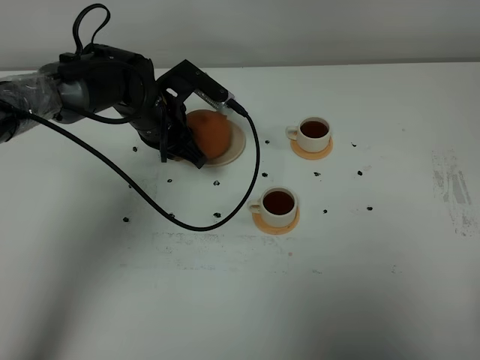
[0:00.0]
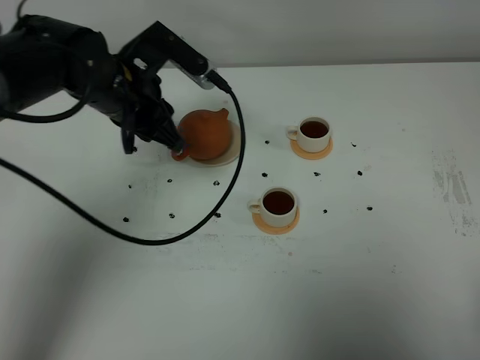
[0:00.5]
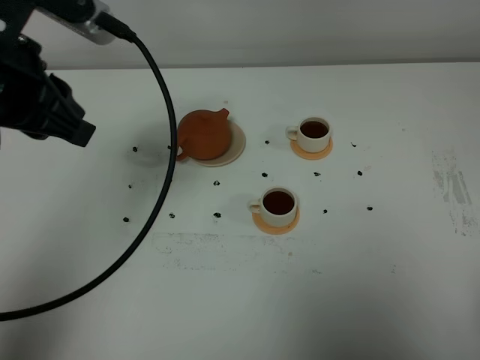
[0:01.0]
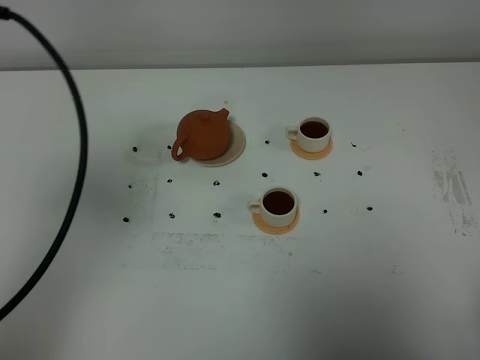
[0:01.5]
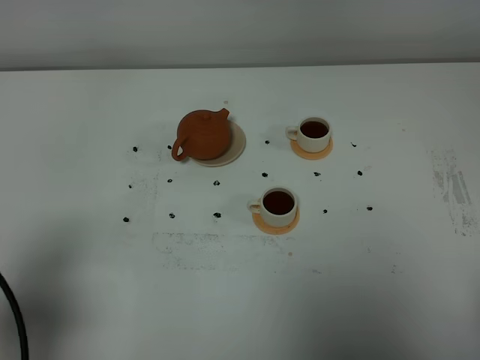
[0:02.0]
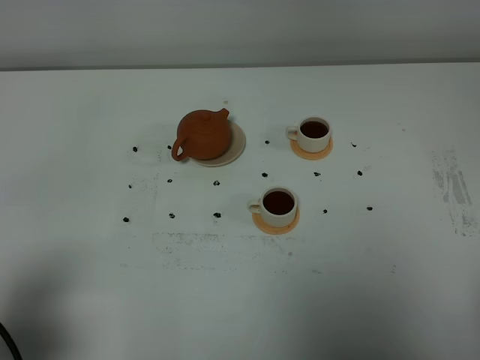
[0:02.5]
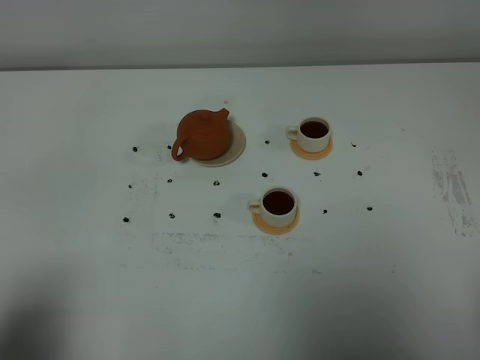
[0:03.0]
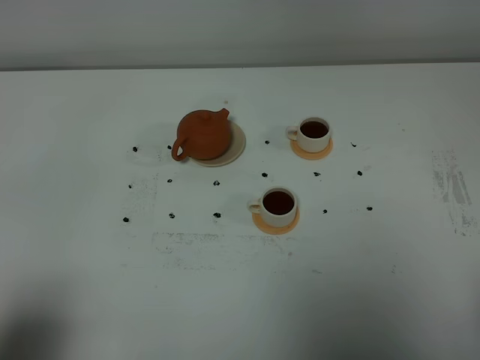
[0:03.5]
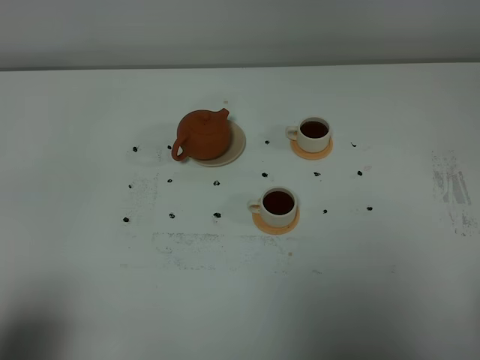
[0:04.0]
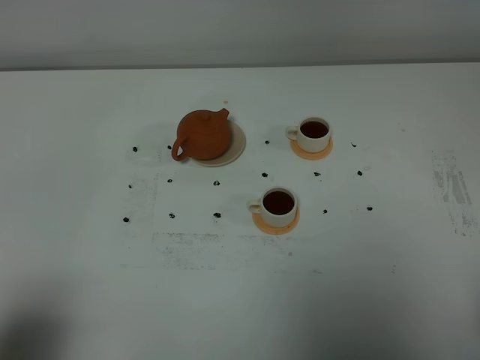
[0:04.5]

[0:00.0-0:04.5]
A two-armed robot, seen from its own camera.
Task of the whole recording: grasp the brown teapot and pour the tea into the two white teacups one by one, put the brown teapot back in its original place.
0:00.0 to 0:02.0: The left gripper is displaced backward and to the left by some 40 cm.
0:02.0 to 0:04.5: The left gripper travels backward by roughly 5 cm.
